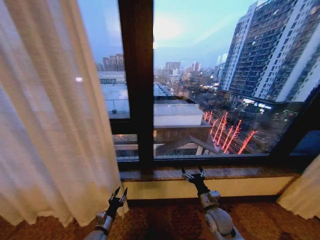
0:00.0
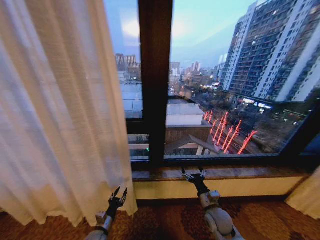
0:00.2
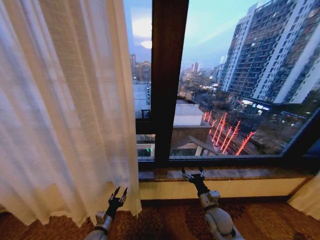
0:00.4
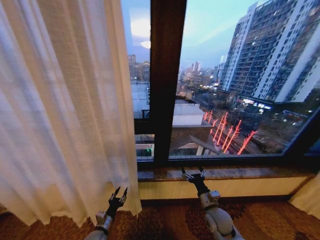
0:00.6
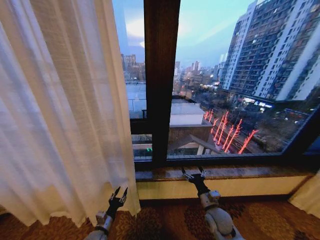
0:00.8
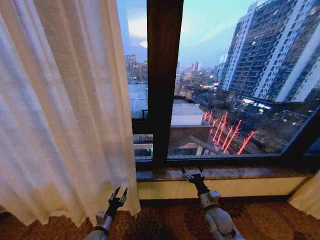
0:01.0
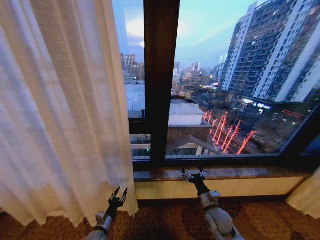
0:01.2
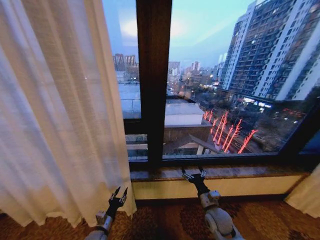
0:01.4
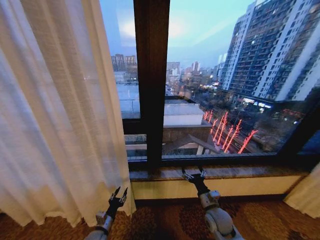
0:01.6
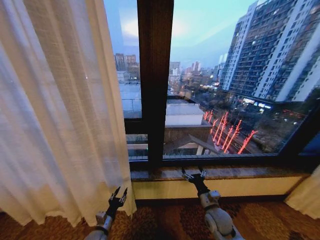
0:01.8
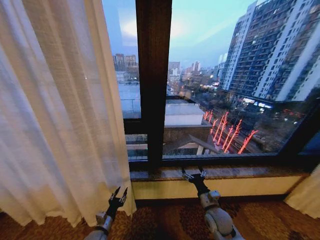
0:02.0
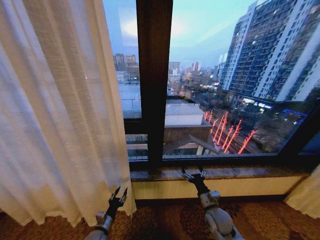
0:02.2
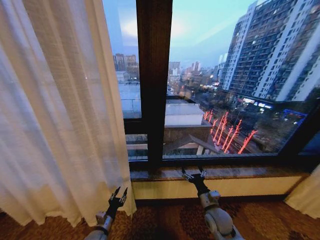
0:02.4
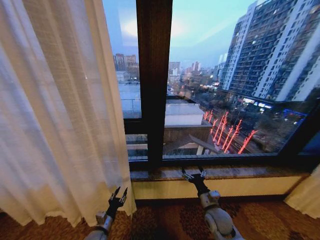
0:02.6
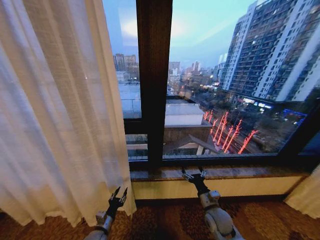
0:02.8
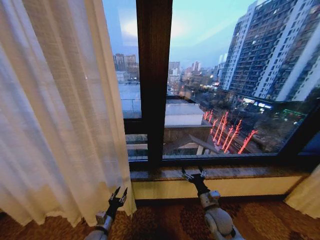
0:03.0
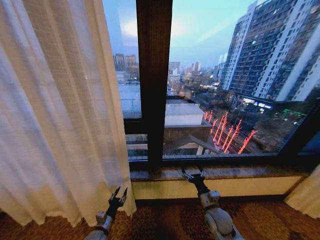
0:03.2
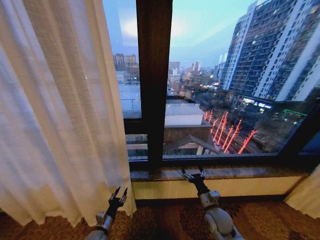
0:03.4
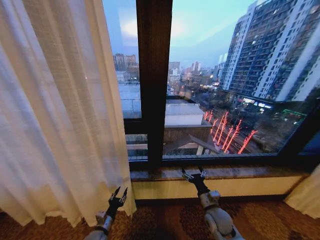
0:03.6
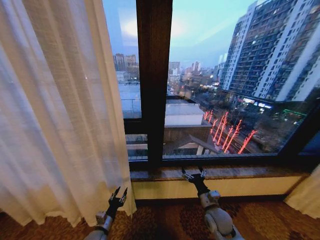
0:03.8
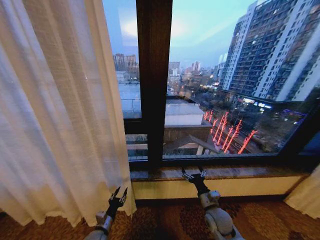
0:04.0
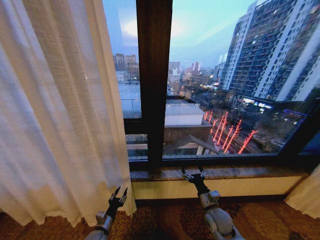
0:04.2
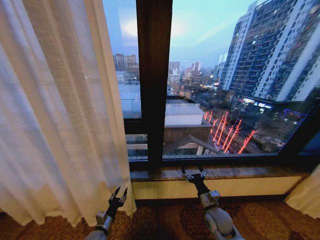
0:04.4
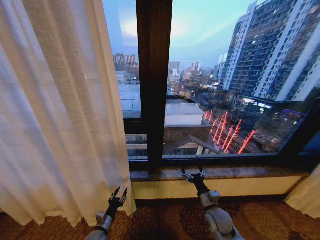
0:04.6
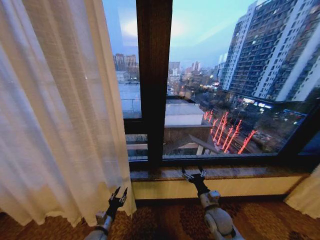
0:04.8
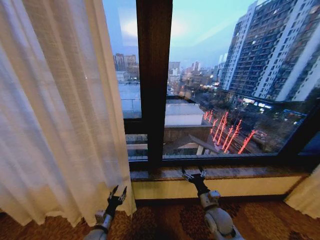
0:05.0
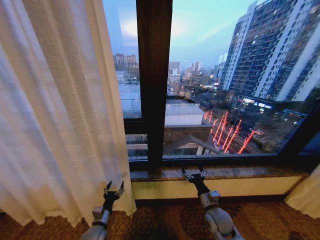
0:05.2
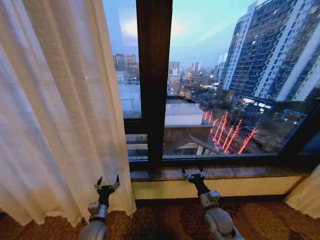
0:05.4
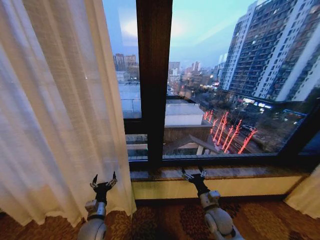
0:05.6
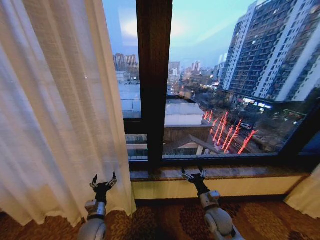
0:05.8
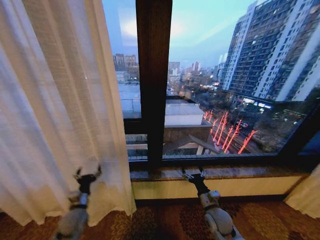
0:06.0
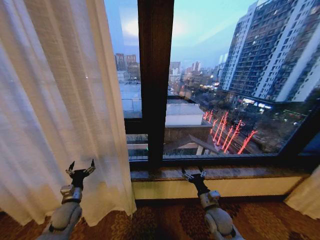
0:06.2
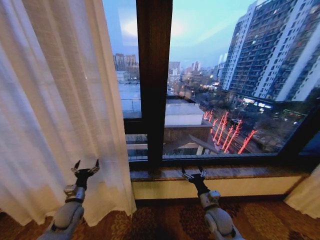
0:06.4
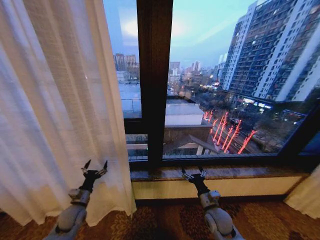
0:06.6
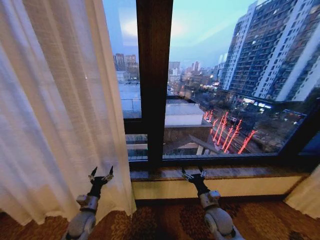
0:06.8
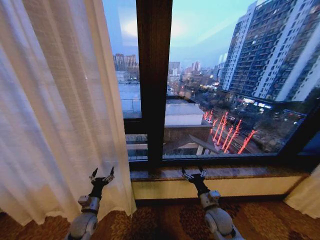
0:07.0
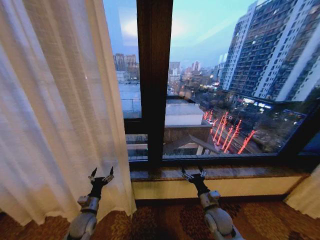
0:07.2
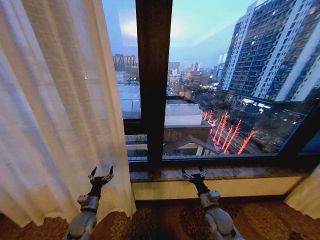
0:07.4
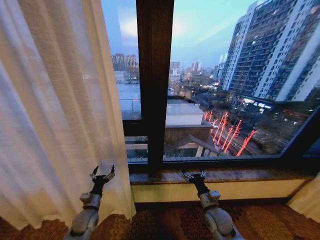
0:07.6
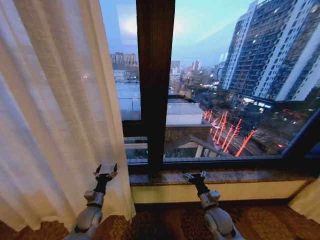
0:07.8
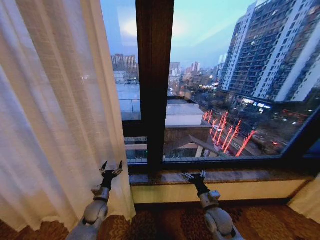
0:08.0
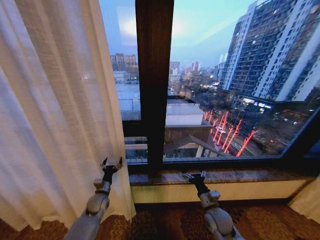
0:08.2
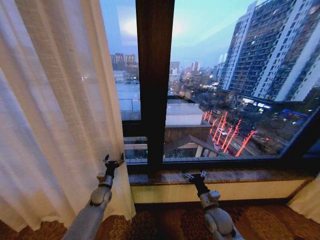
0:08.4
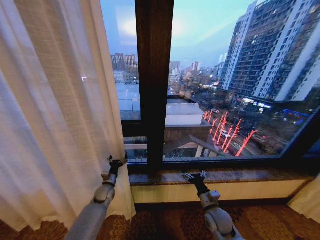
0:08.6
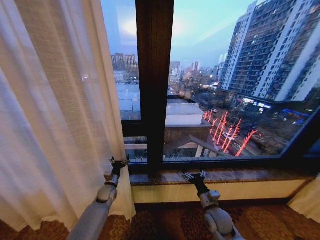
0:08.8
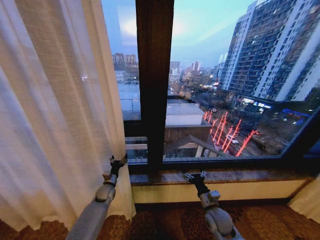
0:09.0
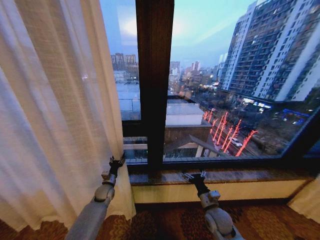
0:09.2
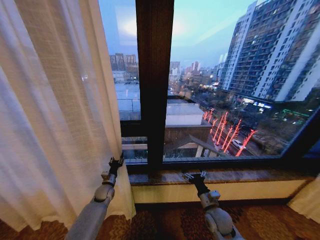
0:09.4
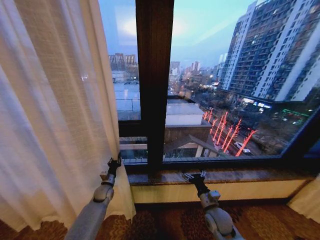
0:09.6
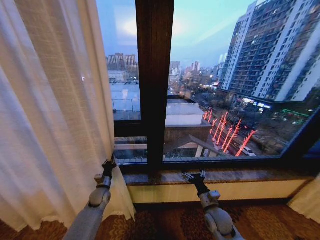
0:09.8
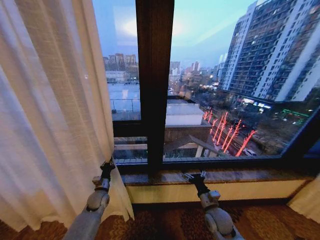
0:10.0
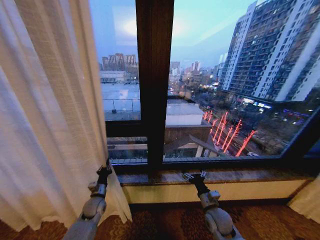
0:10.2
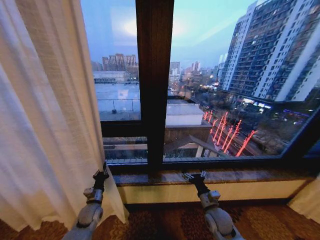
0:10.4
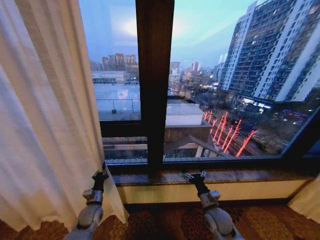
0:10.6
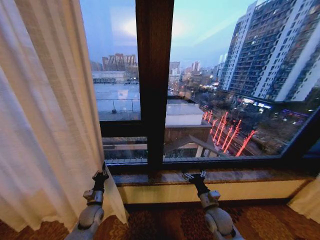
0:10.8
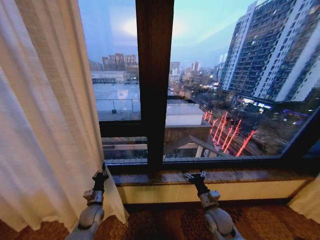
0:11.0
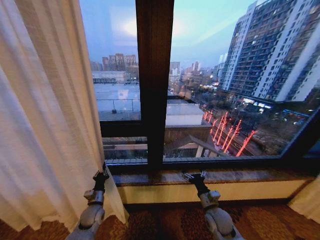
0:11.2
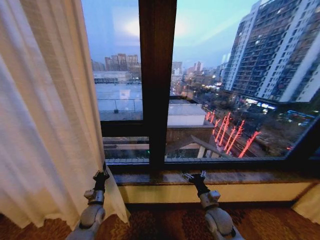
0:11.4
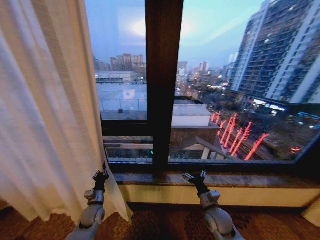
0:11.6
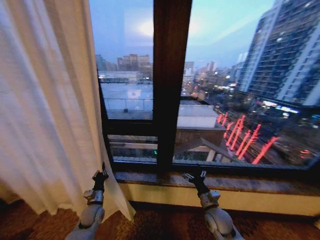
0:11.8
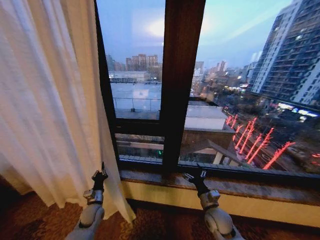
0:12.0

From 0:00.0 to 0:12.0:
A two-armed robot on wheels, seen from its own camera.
Task of the whole recording: Open the curtains by pulling them apart, changing their state from closed to fully open.
From 0:00.0 to 0:04.4: Both grippers stay put.
From 0:04.4 to 0:06.0: The left gripper heads upward and to the left, covering about 10 cm, and opens.
From 0:07.6 to 0:09.0: The left gripper shifts approximately 15 cm forward.
From 0:09.0 to 0:10.4: The left gripper heads backward, covering about 10 cm, and closes.

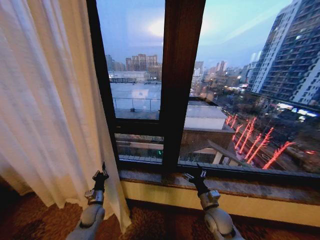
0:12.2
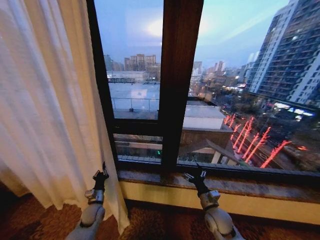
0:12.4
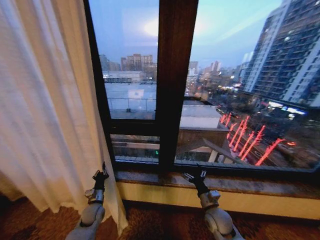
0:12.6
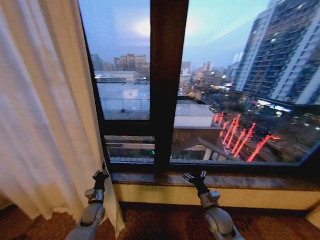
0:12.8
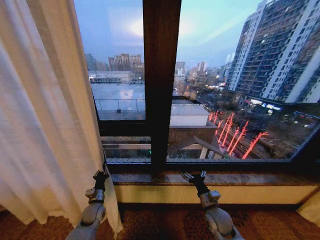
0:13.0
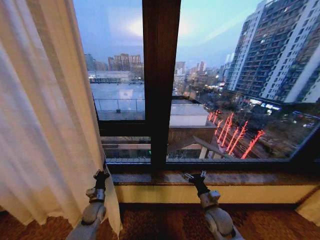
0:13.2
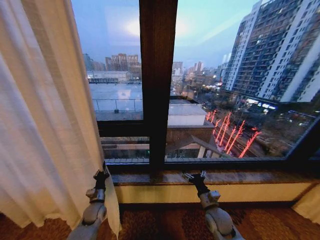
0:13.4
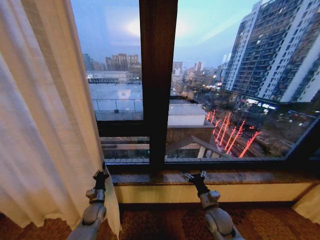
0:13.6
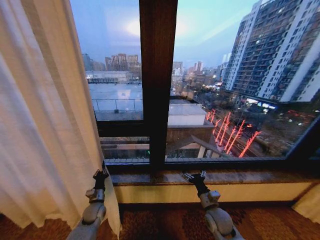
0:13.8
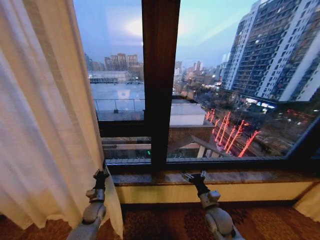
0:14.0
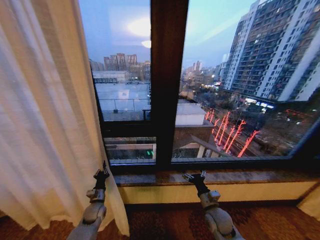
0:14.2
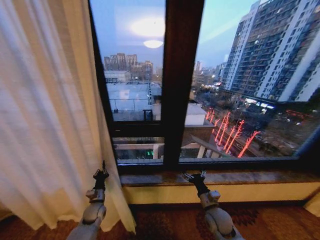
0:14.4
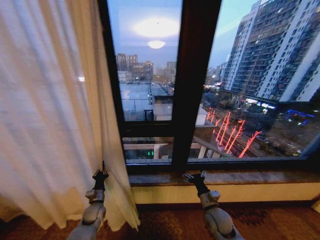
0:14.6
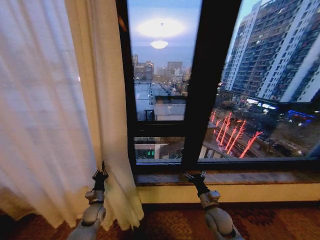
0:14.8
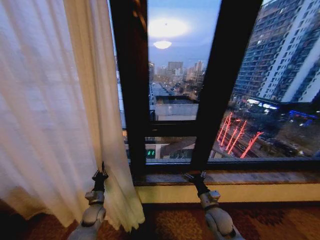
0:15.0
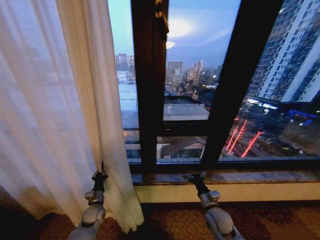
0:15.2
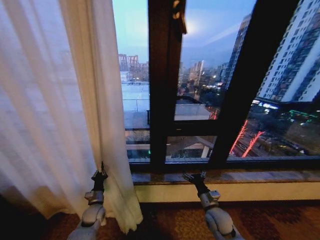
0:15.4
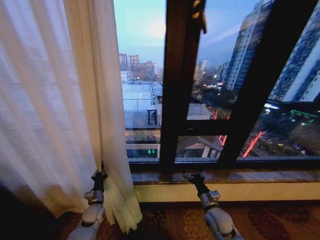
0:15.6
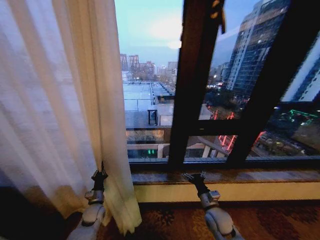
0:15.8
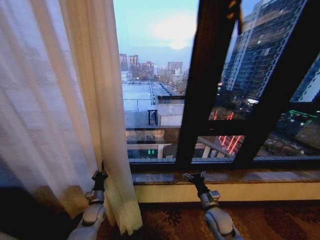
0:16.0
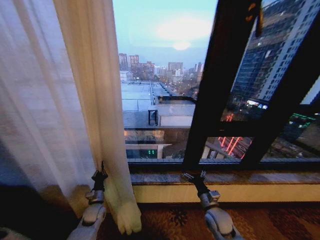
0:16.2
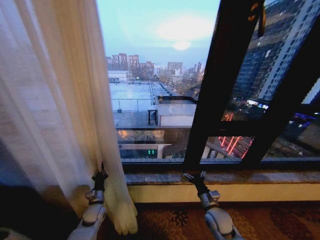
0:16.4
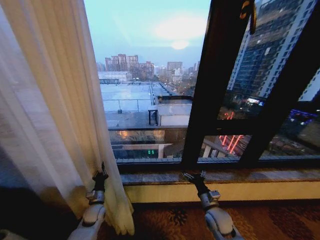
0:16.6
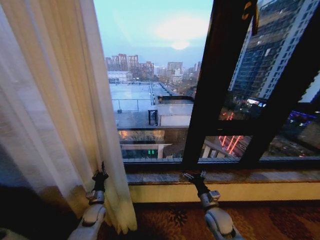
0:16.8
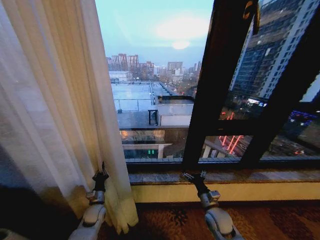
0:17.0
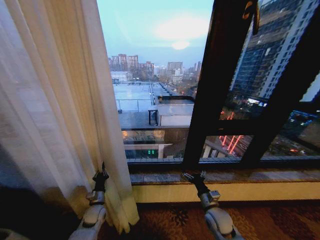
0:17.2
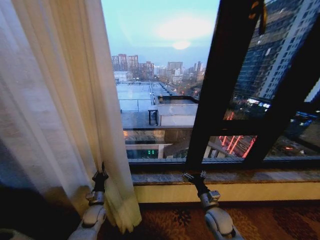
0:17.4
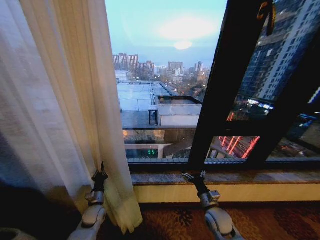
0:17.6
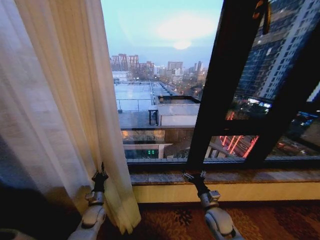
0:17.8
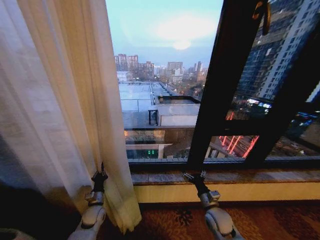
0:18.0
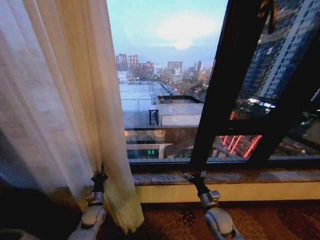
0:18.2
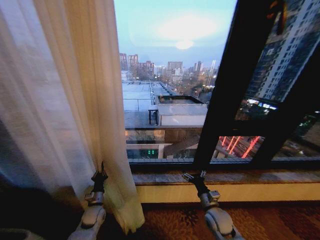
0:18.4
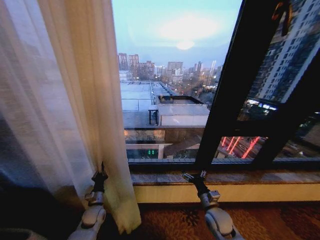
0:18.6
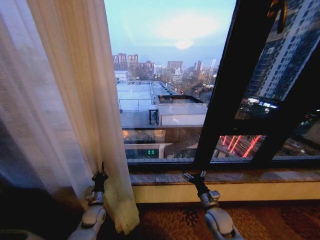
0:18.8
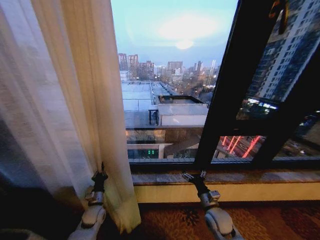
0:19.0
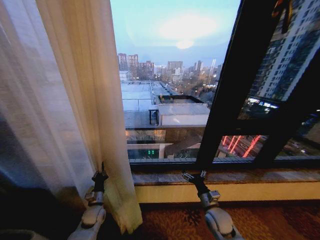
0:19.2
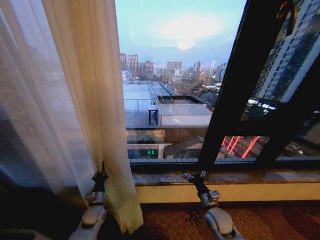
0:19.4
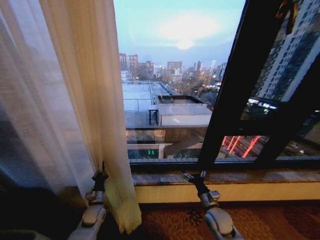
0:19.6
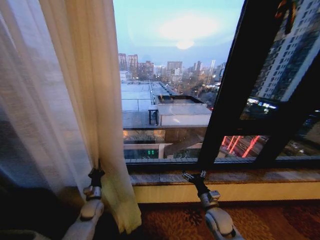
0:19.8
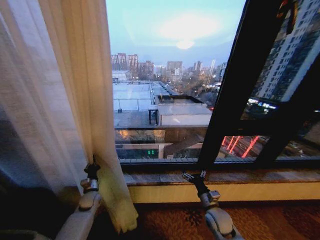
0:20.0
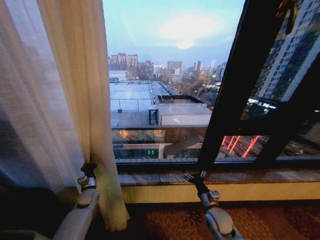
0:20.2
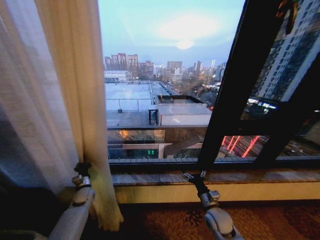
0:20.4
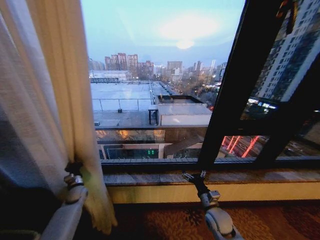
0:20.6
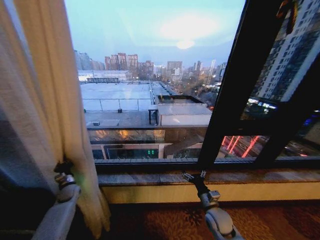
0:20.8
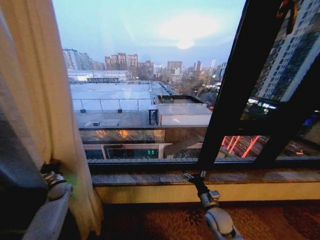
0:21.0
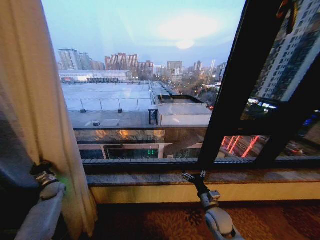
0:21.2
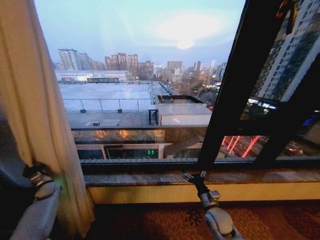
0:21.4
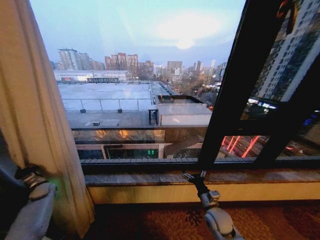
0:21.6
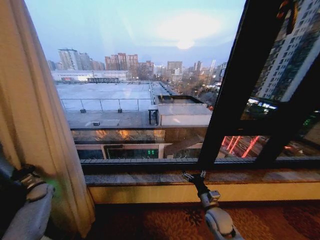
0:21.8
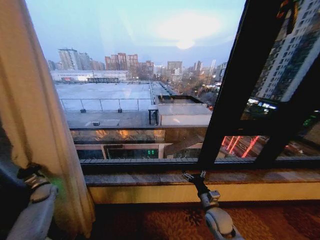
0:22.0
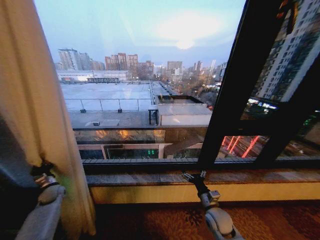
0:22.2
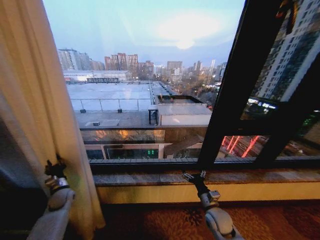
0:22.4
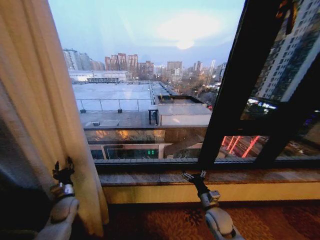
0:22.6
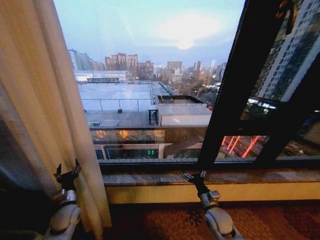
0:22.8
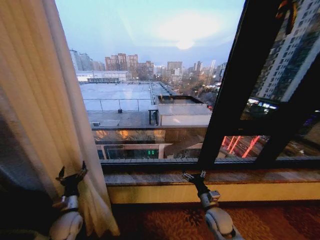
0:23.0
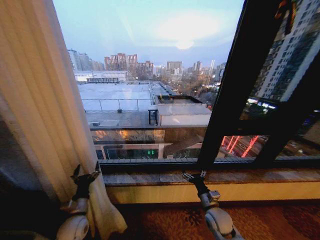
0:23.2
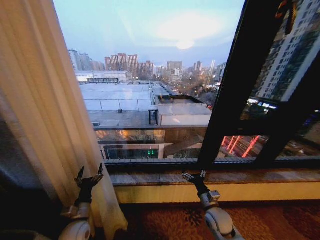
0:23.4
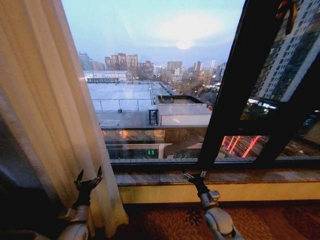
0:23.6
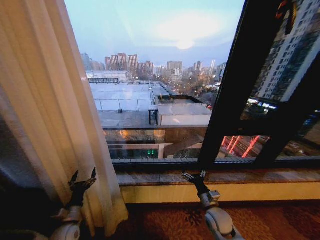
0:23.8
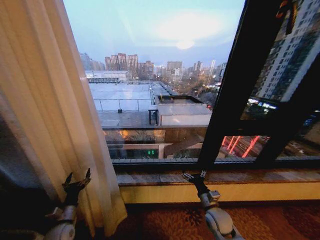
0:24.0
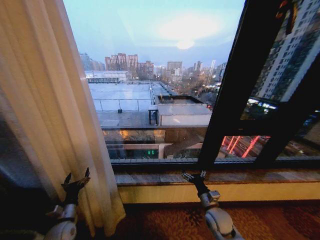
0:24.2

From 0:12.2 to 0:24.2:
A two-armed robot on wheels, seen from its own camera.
Task of the whole recording: Open the curtains by pulling them apart, changing their state from closed to fully open.
From 0:16.6 to 0:18.2: Both grippers stay about where they are.
From 0:18.2 to 0:19.8: The grippers make only small movements.
From 0:19.8 to 0:21.2: The left gripper heads to the left, covering some 20 cm.
From 0:21.2 to 0:22.6: The left gripper is displaced to the right and backward by approximately 15 cm, and opens up.
From 0:22.6 to 0:24.2: The left gripper goes about 10 cm backward, and opens its fingers.
